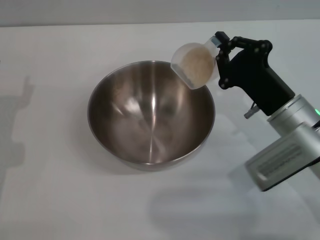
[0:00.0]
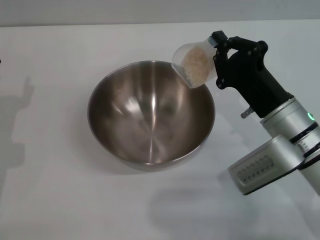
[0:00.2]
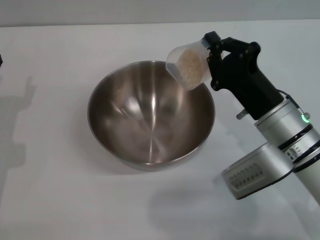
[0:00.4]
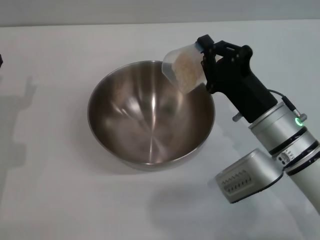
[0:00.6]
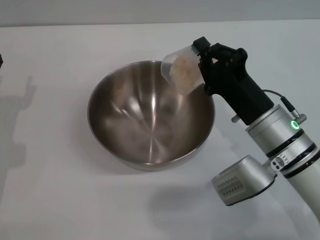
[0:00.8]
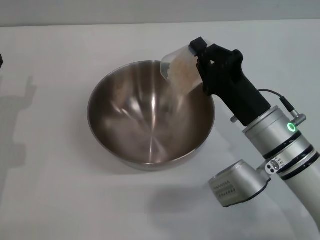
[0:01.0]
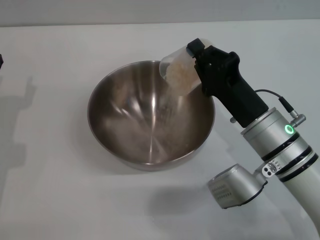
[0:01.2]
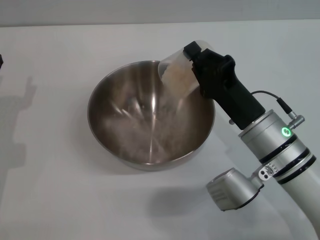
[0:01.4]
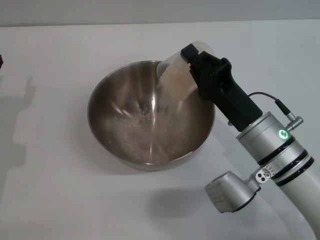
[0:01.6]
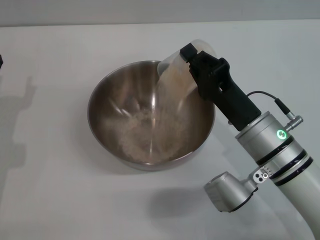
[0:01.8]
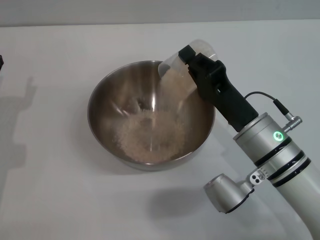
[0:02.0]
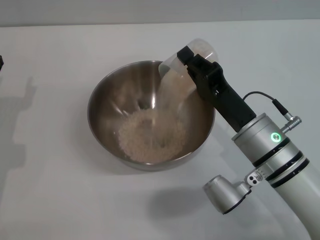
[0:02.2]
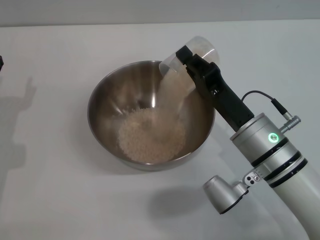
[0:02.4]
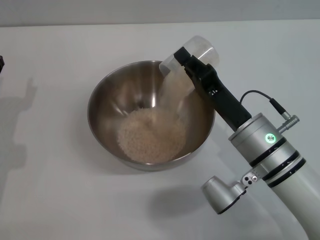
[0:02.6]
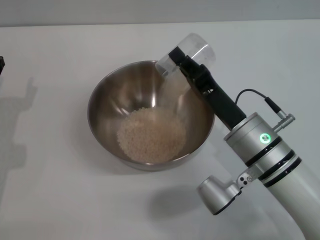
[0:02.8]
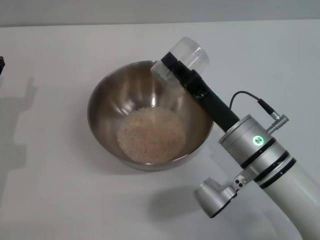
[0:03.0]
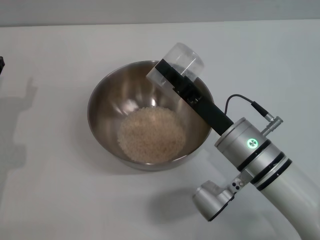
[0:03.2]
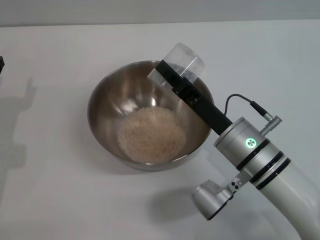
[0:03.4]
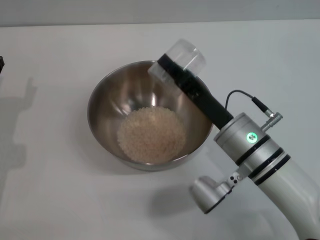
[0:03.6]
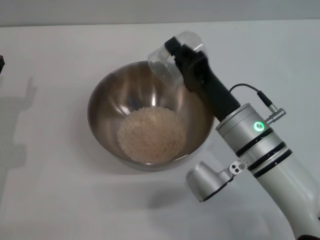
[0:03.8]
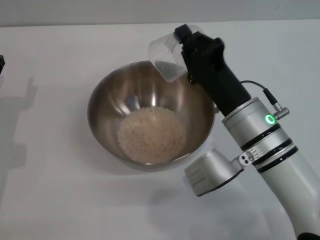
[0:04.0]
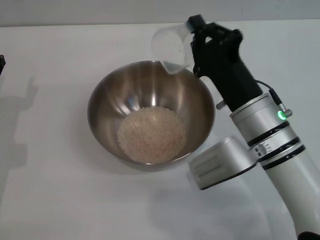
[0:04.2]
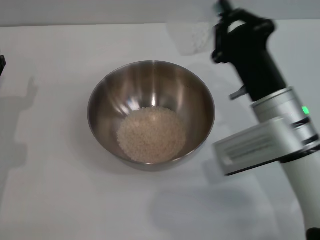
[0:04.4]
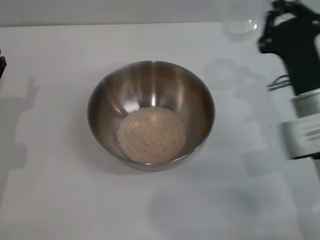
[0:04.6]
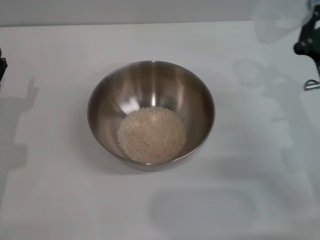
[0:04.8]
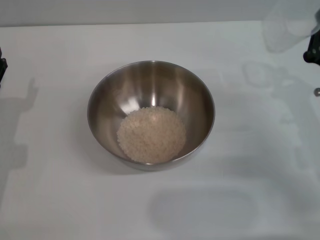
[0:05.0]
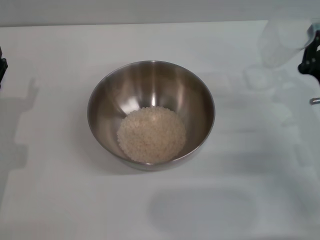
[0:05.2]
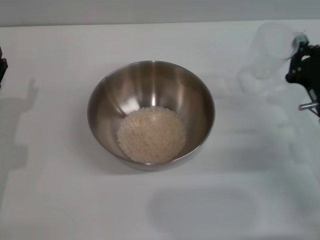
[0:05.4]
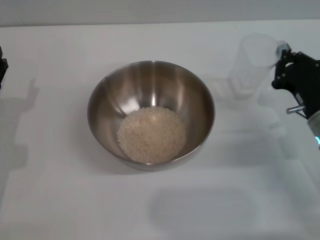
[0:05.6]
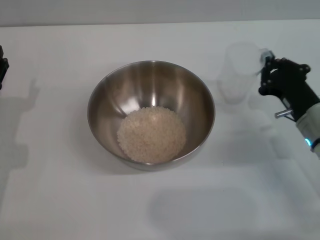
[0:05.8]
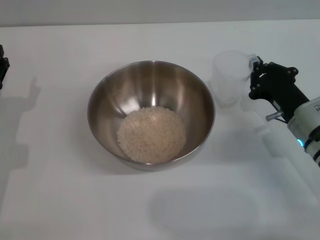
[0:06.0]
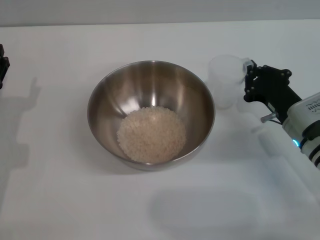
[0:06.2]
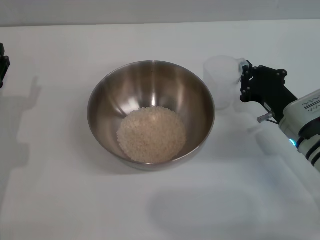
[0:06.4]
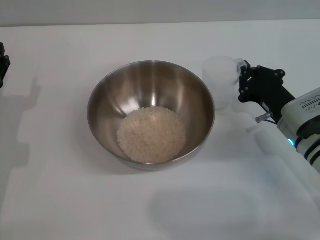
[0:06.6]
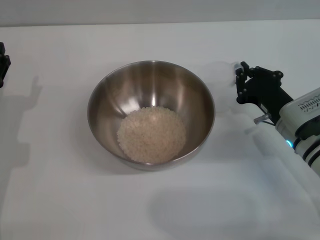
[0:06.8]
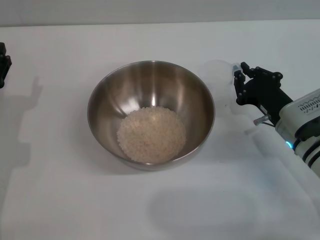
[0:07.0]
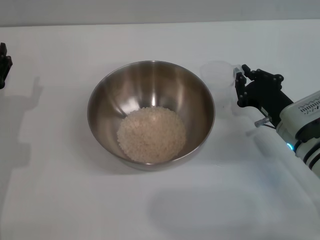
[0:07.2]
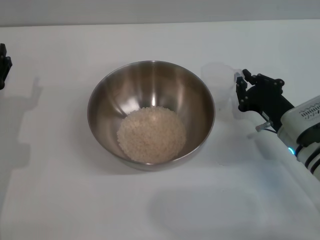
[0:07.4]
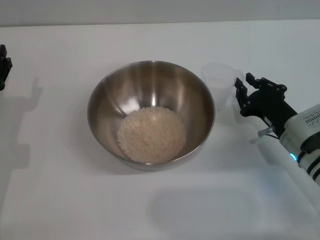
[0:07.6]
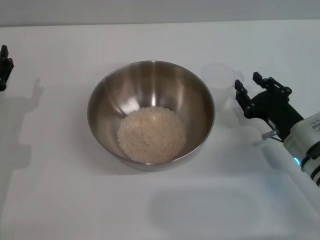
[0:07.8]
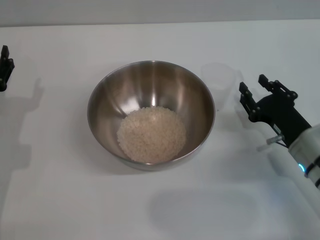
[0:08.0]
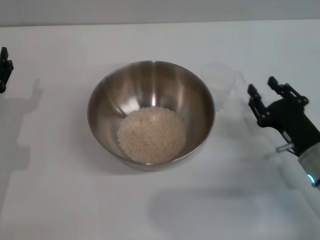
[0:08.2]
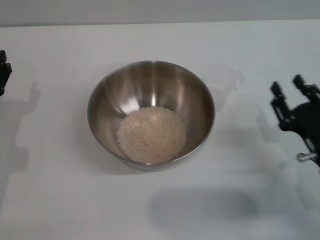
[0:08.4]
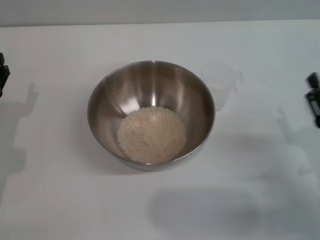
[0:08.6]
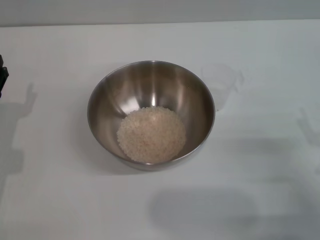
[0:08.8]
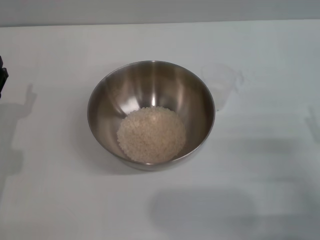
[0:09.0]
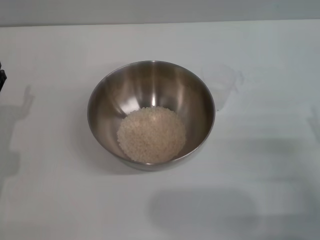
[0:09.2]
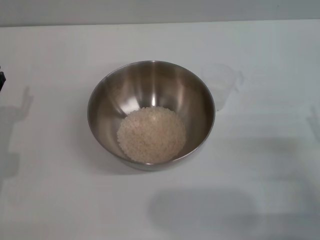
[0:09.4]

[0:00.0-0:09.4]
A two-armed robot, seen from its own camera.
Task of the whole recording: Place the bowl in the middle of the table with one hand and pour the rice from the grain cup into it with the other hand.
Step, 0:00.0 to 0:03.6: Pour the rice from the cup into the bowl with the right gripper.
Step, 0:03.8 to 0:07.8: Place the cup on the table with the right gripper.
0:00.0 to 0:01.6: The right gripper moves some 5 cm.
0:03.2 to 0:04.8: The right gripper moves to the right, about 15 cm.
0:04.8 to 0:06.2: The right gripper shifts approximately 5 cm downward.
0:06.2 to 0:07.8: The right gripper opens.
0:07.8 to 0:09.4: The right gripper shifts about 10 cm backward and to the right, and opens its fingers.
